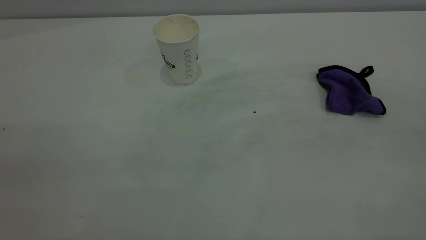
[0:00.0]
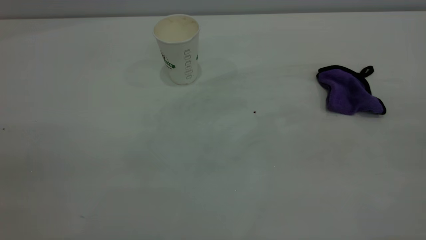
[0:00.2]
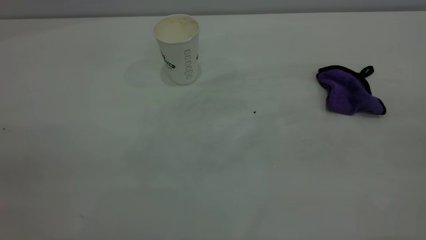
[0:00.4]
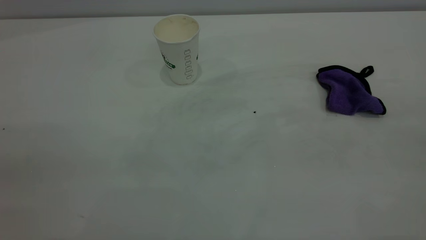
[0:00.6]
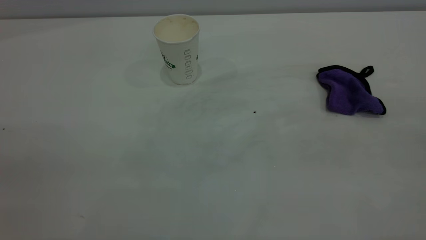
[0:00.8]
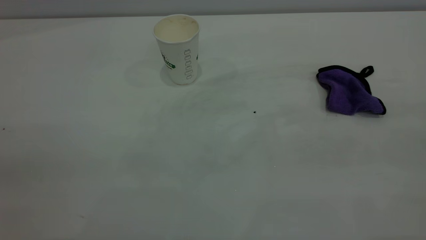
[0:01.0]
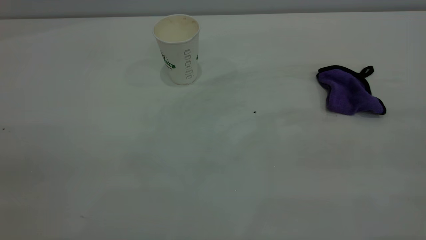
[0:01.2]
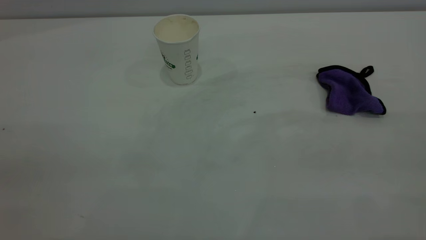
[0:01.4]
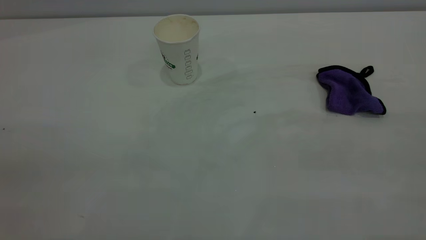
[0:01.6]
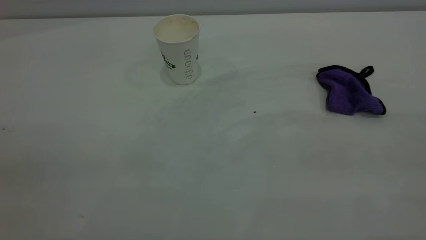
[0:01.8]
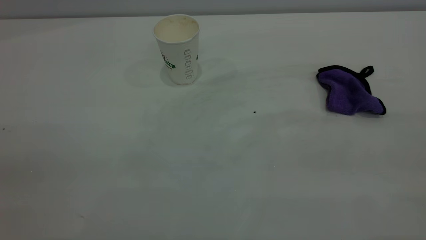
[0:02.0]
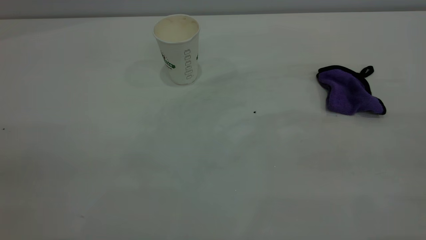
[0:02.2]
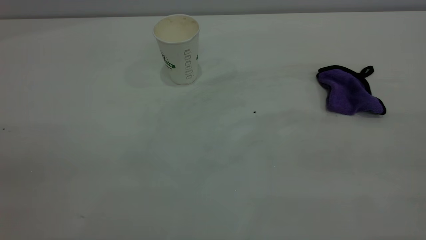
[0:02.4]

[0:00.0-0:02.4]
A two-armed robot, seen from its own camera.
Task of the whole recording: the left gripper pick up the fallen cup and place it upright, the right gripper grasp the purple rag and wipe the coffee stain on the table, the right gripper put the purple rag back in its original position.
0:01.2 to 0:02.4: Both grippers stay put.
